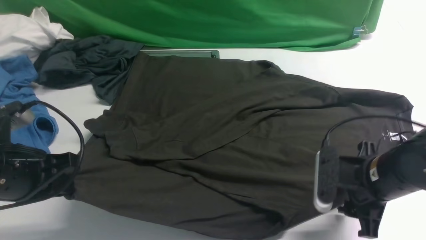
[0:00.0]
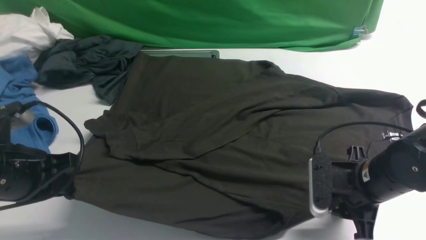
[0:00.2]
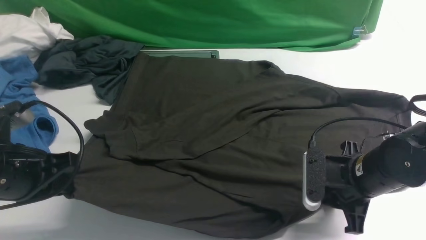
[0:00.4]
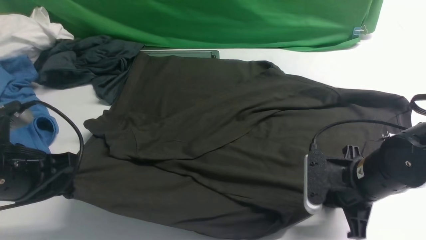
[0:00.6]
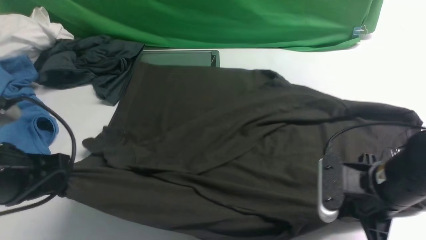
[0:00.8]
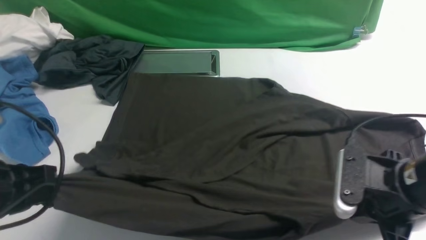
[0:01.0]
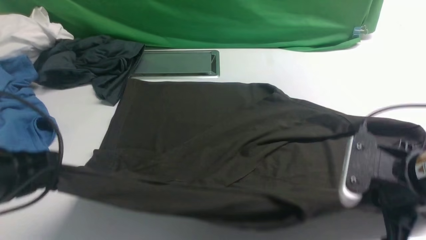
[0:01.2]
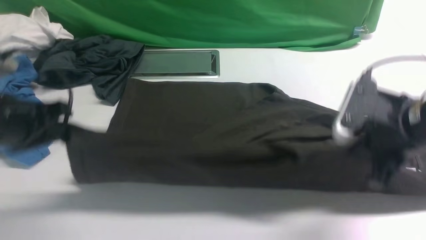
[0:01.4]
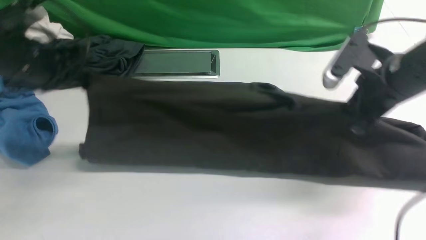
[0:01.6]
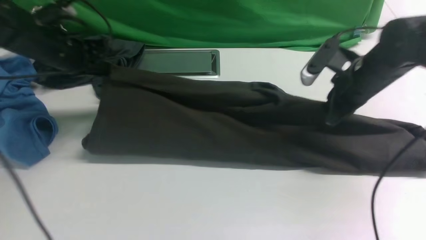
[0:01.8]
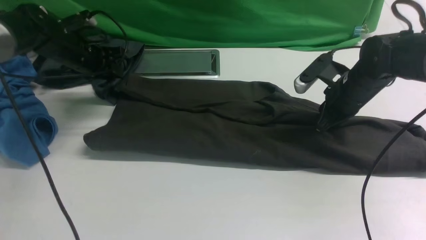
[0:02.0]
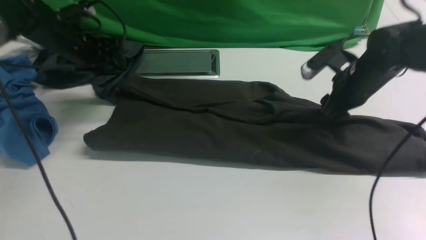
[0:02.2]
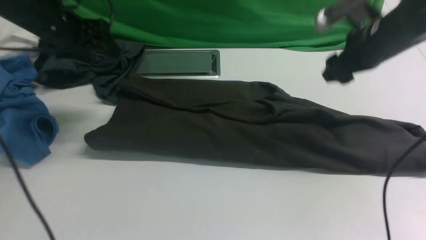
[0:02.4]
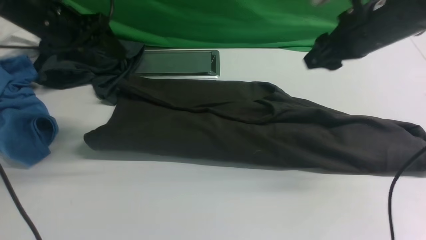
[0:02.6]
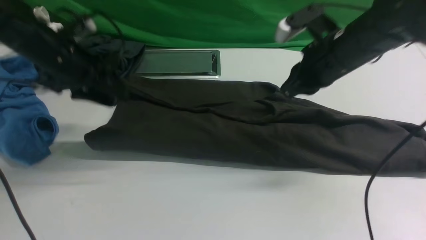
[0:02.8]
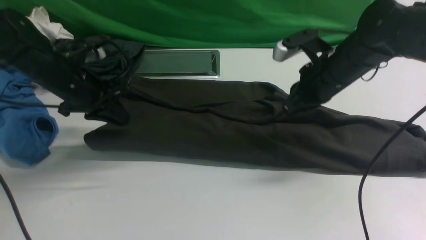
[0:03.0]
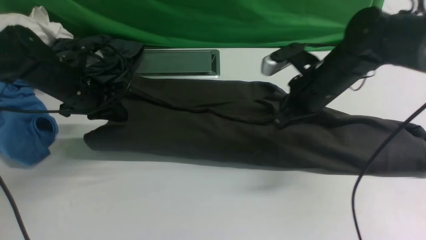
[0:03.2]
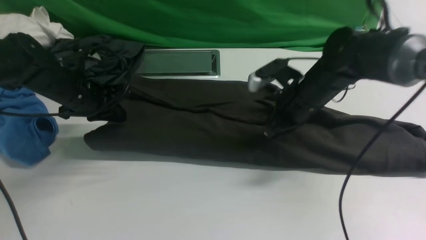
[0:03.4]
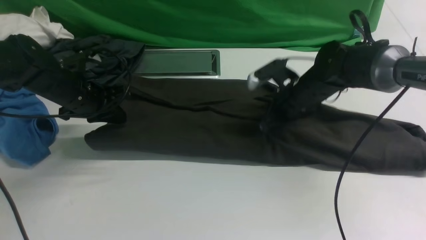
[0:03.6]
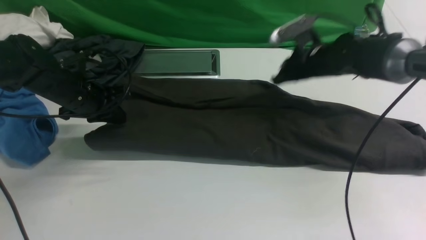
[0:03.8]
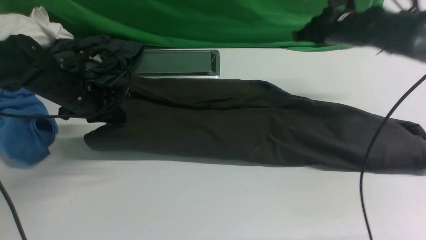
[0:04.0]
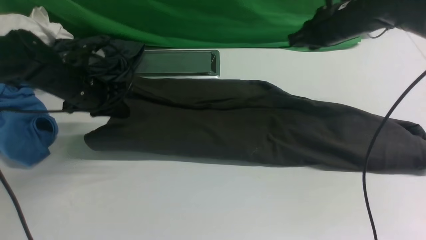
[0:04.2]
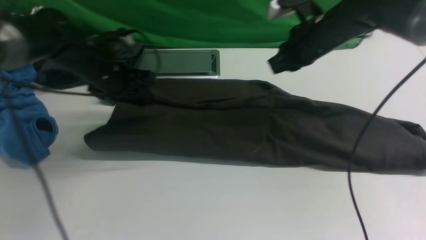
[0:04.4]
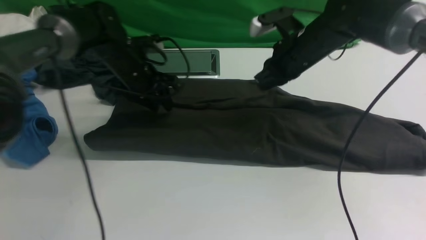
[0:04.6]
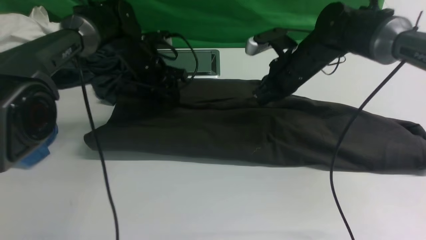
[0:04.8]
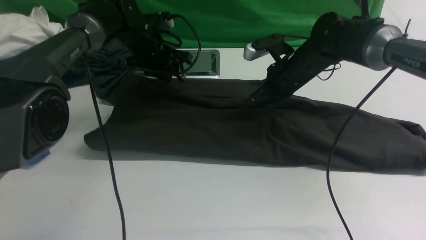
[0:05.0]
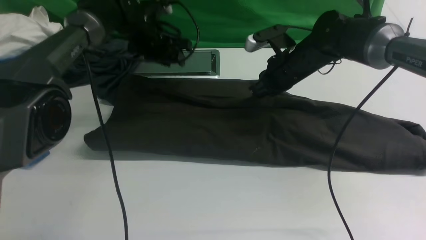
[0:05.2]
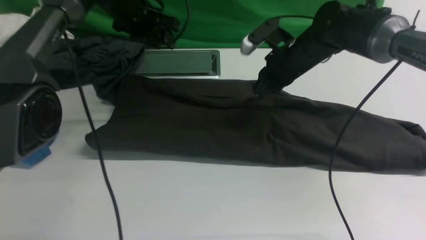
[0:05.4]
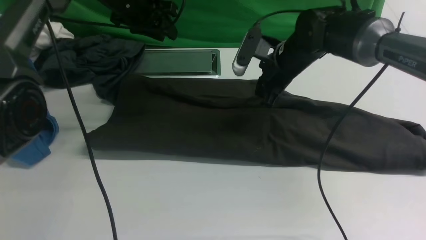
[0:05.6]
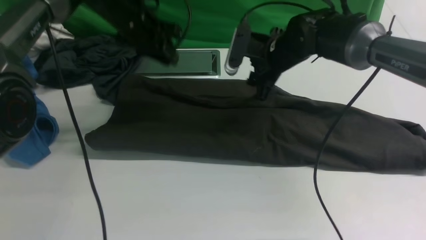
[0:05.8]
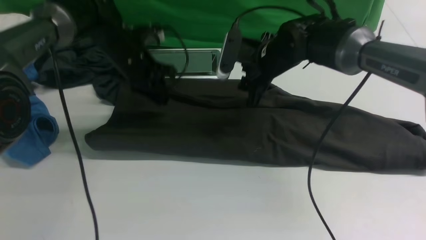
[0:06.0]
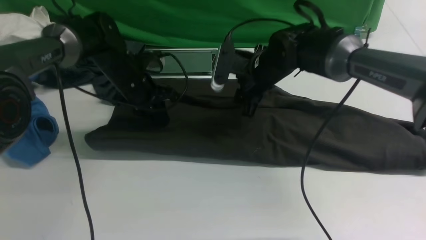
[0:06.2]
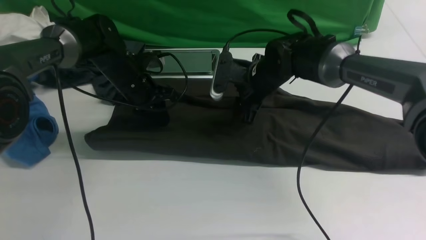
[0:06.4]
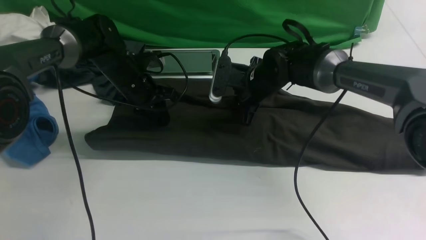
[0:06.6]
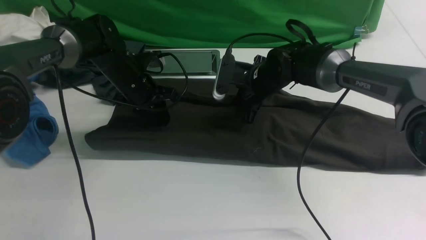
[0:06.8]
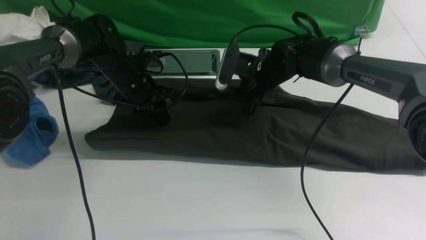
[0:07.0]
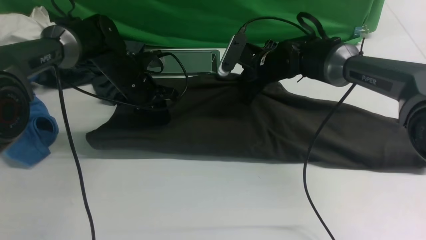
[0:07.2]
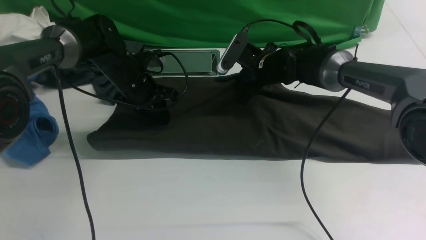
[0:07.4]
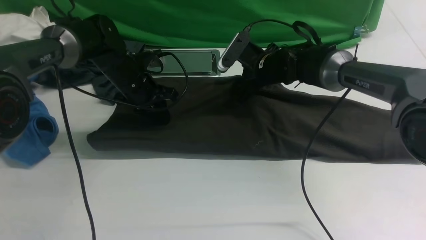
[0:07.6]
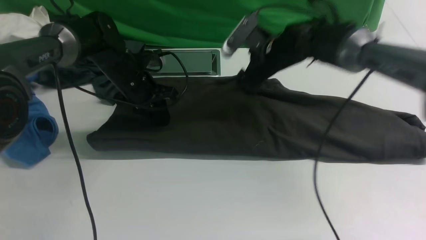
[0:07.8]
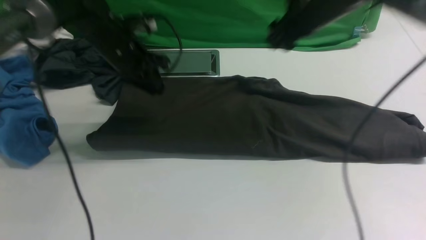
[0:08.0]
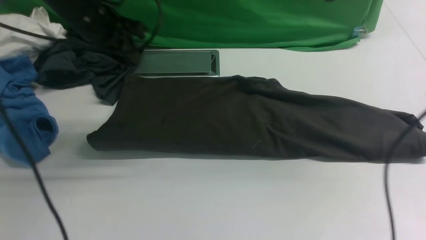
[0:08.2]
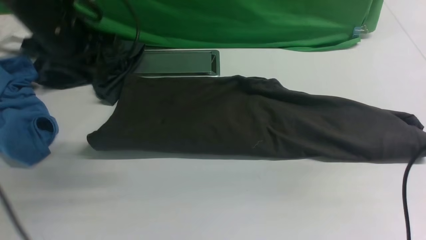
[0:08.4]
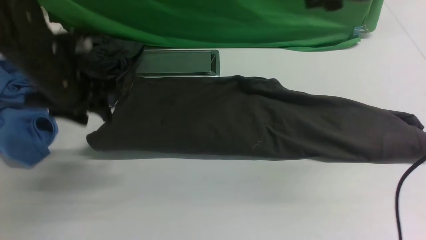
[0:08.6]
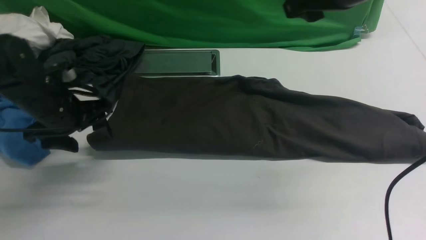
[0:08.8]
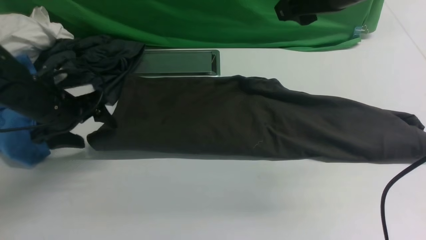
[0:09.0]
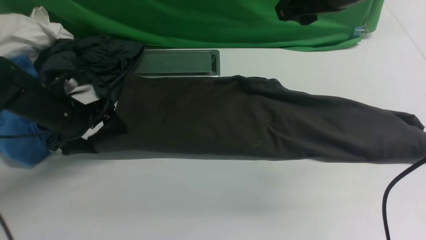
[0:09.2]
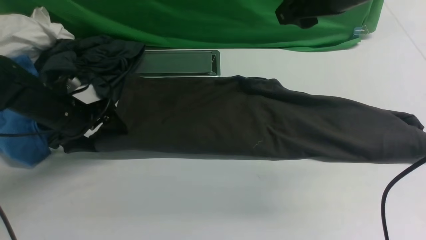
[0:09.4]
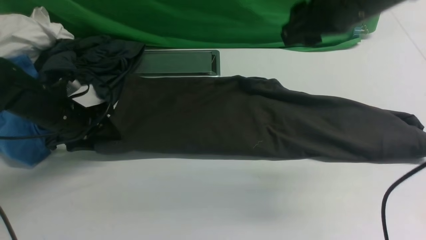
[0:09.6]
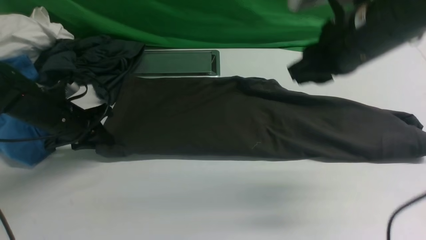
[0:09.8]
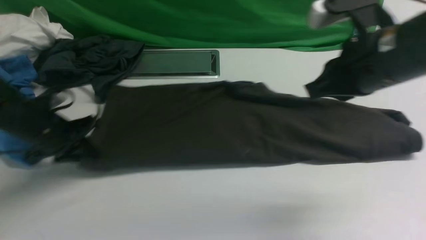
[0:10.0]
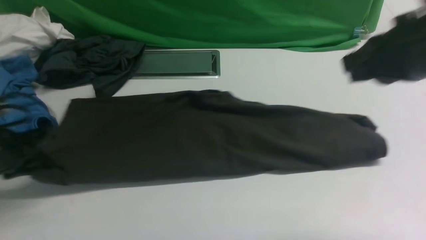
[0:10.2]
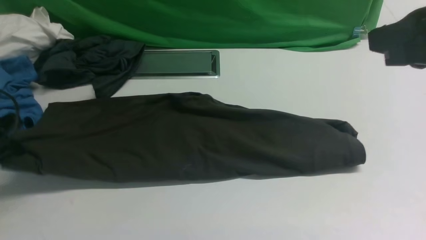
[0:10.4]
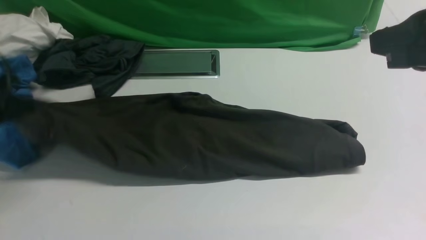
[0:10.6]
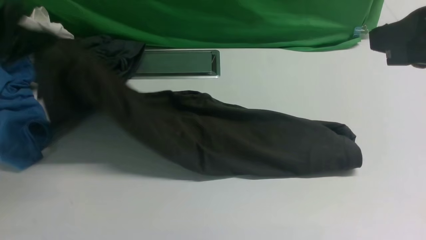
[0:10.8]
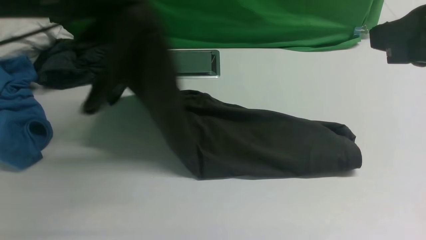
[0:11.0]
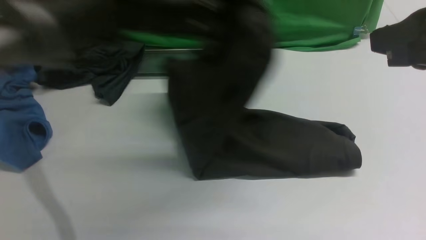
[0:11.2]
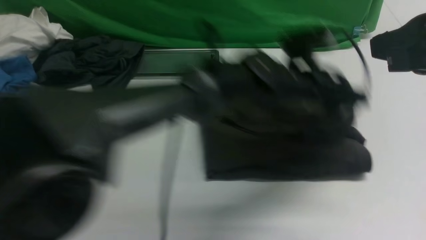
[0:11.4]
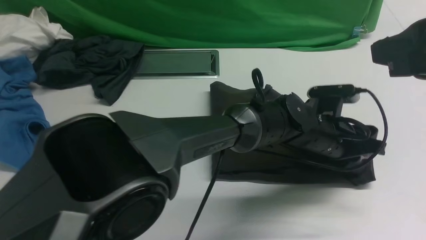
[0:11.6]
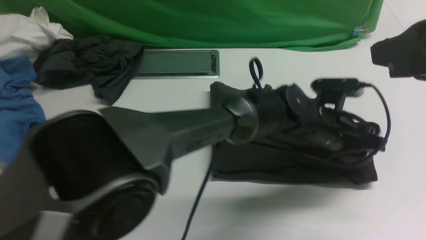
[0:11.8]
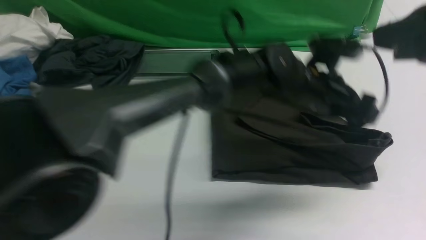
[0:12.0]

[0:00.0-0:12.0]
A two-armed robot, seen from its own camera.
Step, 0.8 to 7.8 s: use both arms to drag the lower edge of the fabric forward and fold it over the upper edge.
Step, 8.0 to 10.0 s: Hold the left edge of the fabric with your left arm.
Step, 10.4 to 12.0 s: Drag the left edge of the fabric to the left with your left arm and fold it to the right edge.
0.0 to 1.6 s: The right gripper heads forward and upward, covering approximately 15 cm, and closes; the left gripper is displaced forward by about 15 cm.
1.6 to 3.0 s: The left gripper is displaced downward by roughly 5 cm, goes forward and returns, about 10 cm each way, and opens, then closes again. Meanwhile the right gripper moves up and down over about 10 cm, changing direction 2 times, and opens and closes again.
3.0 to 4.4 s: The left gripper ends up roughly 5 cm from where it was. Meanwhile the right gripper goes approximately 5 cm forward.
4.4 to 6.0 s: The right gripper shifts about 5 cm to the left, and opens up.
6.0 to 7.6 s: The right gripper closes and opens again.
7.6 to 9.0 s: The right gripper travels upward and backward by roughly 25 cm; the left gripper travels backward and to the left by about 15 cm, goes upward and returns, some 15 cm each way, and opens its fingers.
9.0 to 10.4 s: The right gripper moves backward and to the right, about 15 cm, and closes up, while the left gripper moves to the left and backward, roughly 10 cm, and closes its fingers.
10.4 to 12.0 s: The left gripper travels to the right by about 40 cm, and opens up.

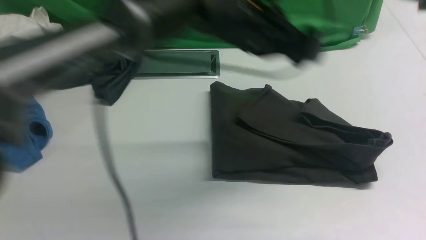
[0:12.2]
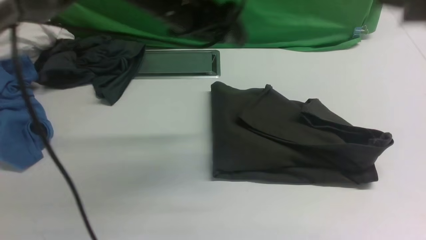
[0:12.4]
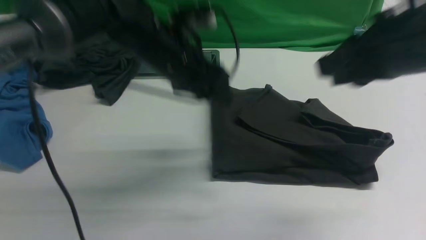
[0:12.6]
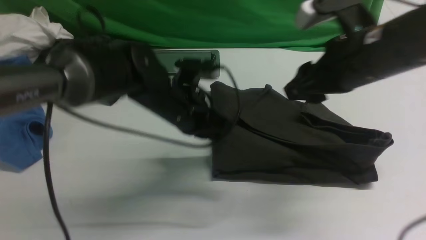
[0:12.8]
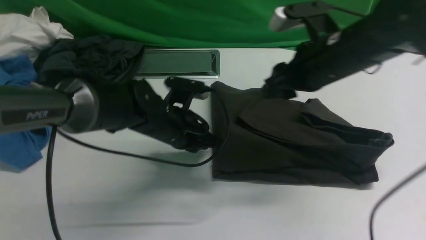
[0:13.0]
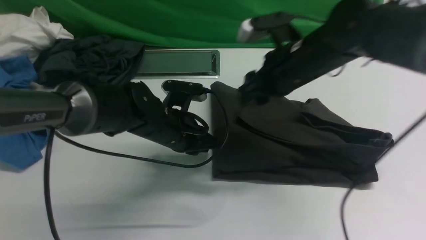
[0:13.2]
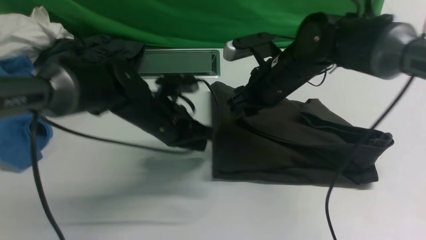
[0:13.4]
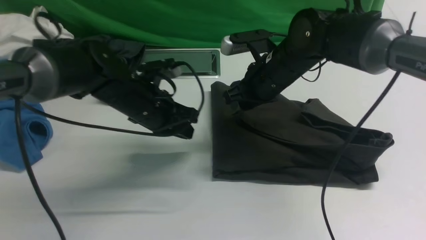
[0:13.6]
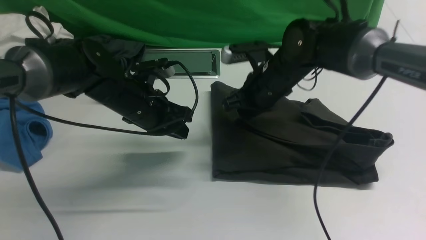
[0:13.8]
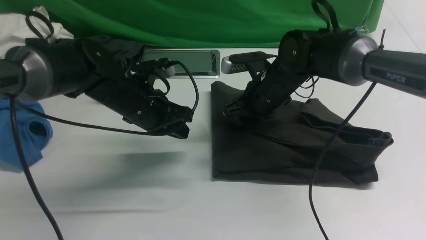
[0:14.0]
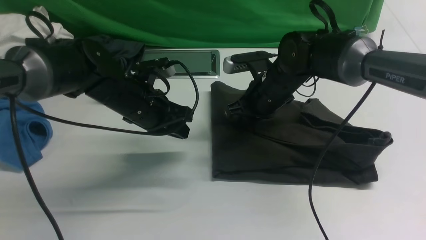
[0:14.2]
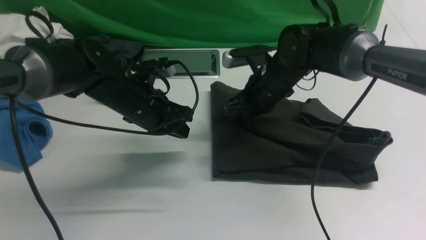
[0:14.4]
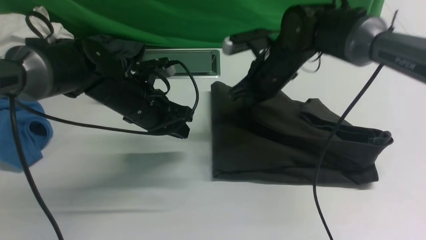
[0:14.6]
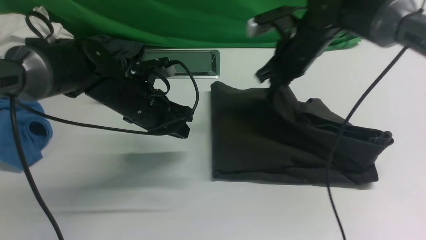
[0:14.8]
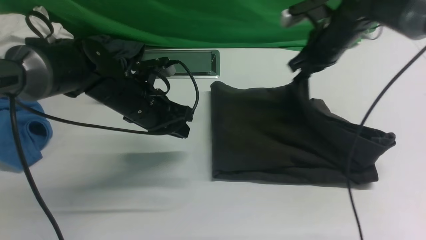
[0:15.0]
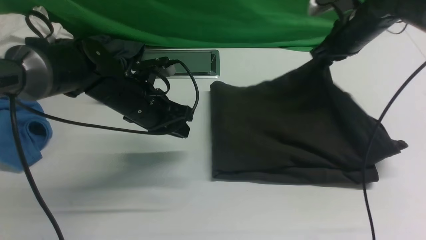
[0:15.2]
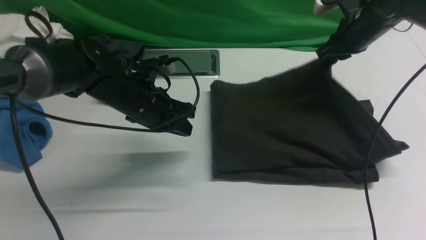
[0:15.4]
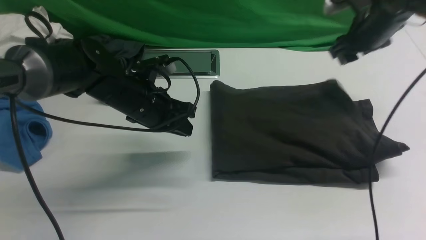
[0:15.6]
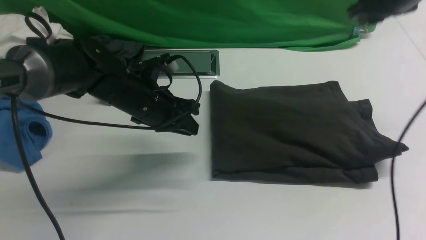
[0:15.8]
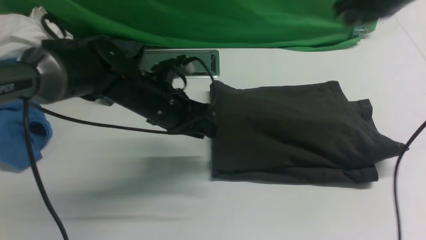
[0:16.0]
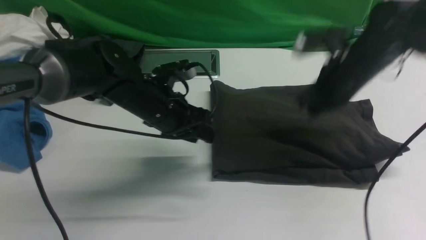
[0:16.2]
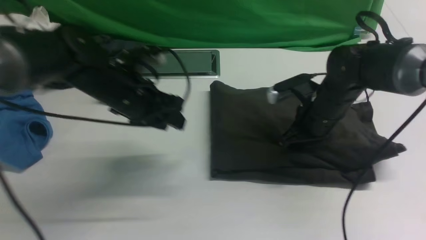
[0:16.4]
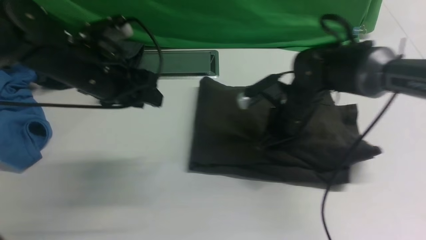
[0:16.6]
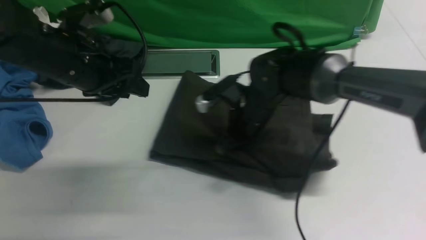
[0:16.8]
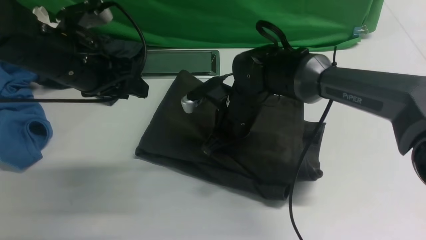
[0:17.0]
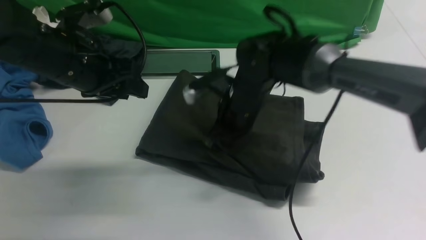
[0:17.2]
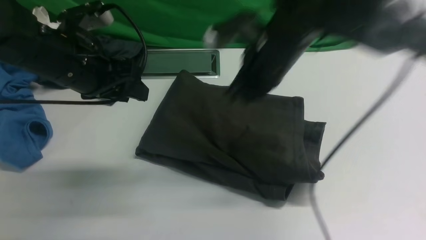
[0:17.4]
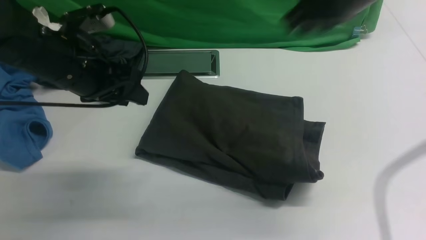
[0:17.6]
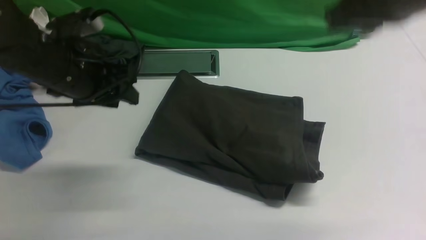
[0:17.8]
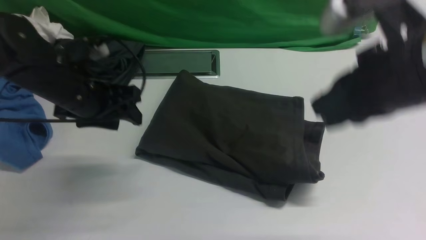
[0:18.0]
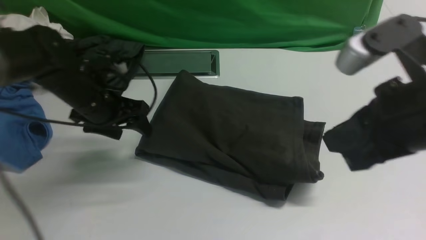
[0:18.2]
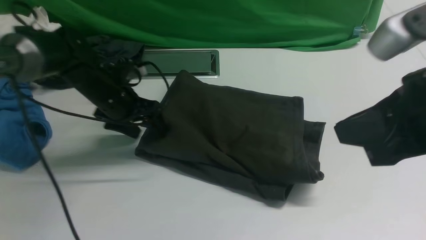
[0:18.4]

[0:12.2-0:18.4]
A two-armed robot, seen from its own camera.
12.2 to 13.8 s: The right gripper shifts approximately 35 cm downward, forward and to the left, and opens its fingers. Meanwhile the left gripper heads to the left and downward, covering approximately 20 cm, and closes up.
13.8 to 15.4 s: The right gripper moves to the right and forward, about 20 cm, and closes, then reopens.
15.4 to 16.8 s: The left gripper is displaced upward and to the left by some 10 cm, and opens up. The right gripper shifts roughly 25 cm to the left, backward and downward, and closes.
16.8 to 18.4 s: The right gripper goes approximately 30 cm backward, upward and to the right. The left gripper shifts some 15 cm downward and forward, and opens.
